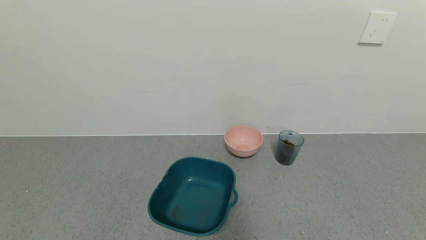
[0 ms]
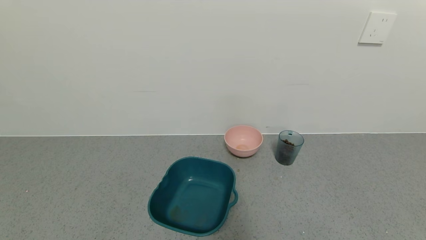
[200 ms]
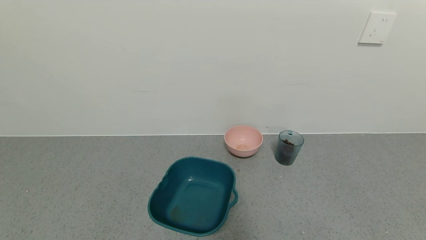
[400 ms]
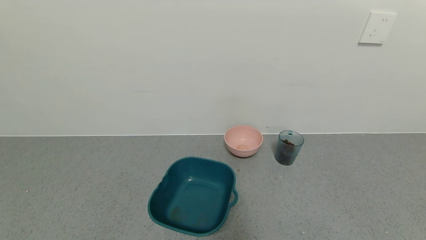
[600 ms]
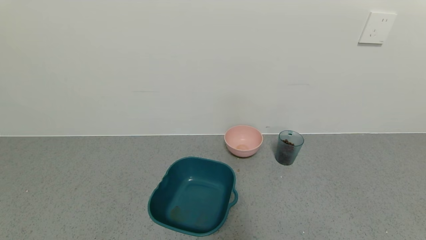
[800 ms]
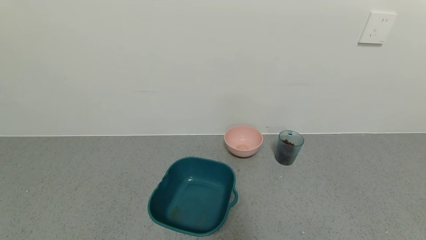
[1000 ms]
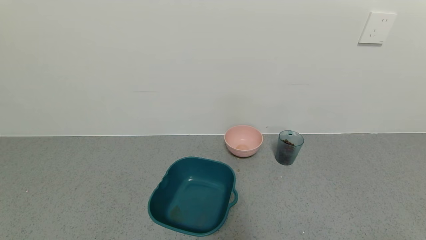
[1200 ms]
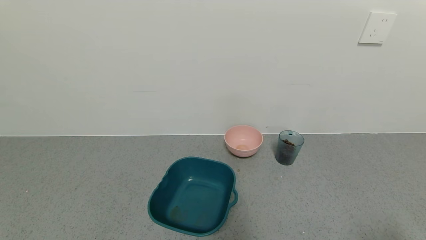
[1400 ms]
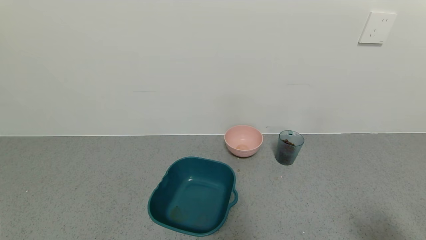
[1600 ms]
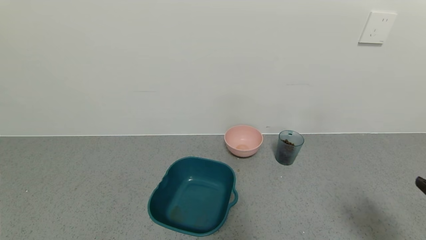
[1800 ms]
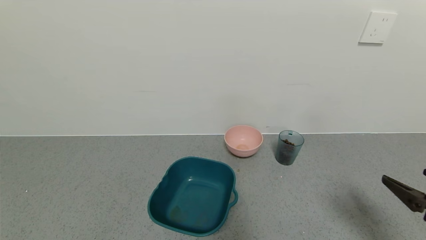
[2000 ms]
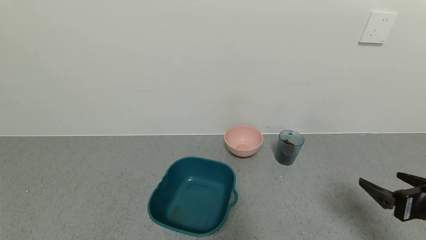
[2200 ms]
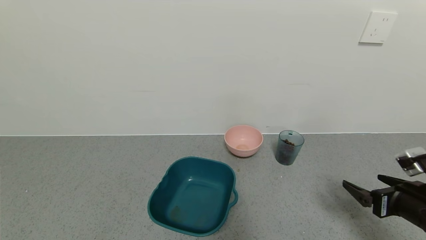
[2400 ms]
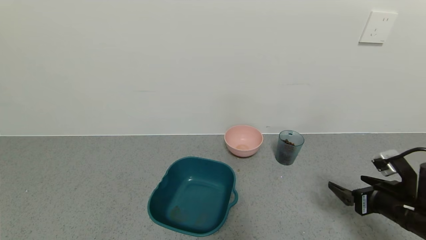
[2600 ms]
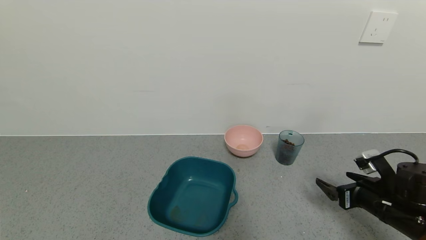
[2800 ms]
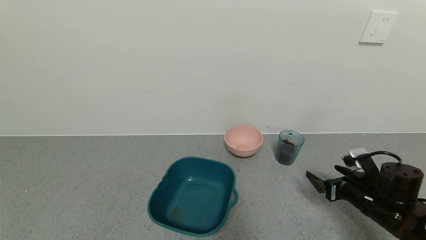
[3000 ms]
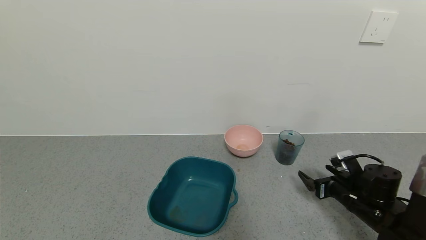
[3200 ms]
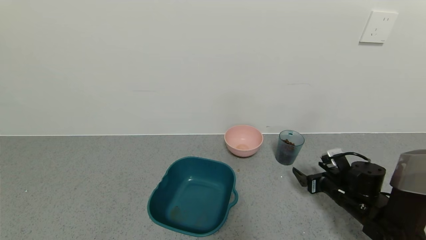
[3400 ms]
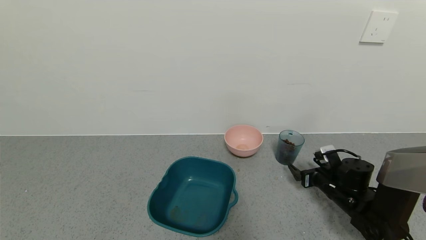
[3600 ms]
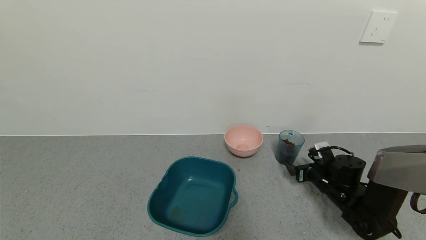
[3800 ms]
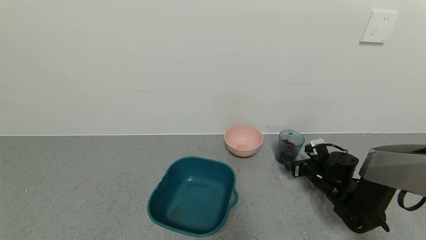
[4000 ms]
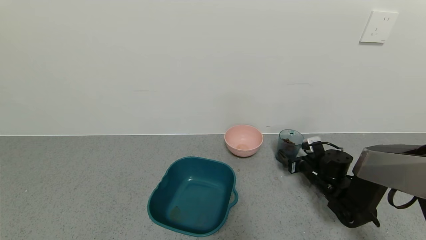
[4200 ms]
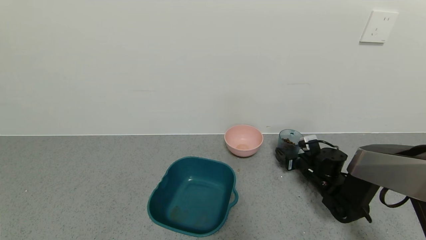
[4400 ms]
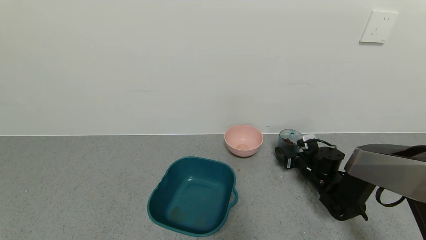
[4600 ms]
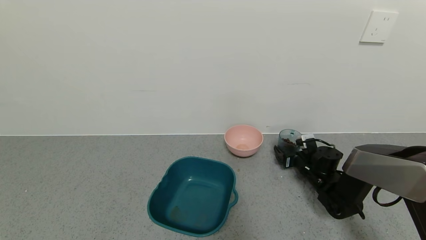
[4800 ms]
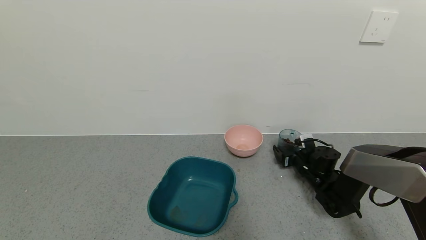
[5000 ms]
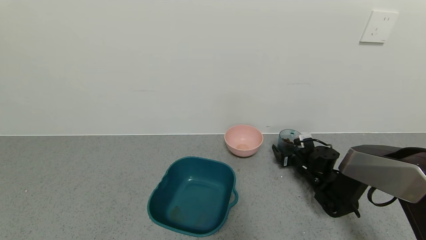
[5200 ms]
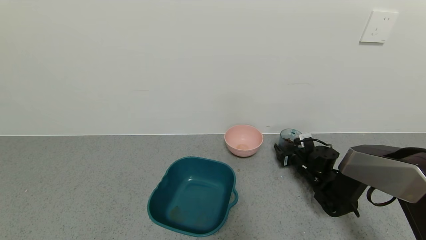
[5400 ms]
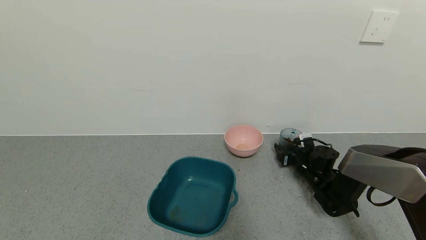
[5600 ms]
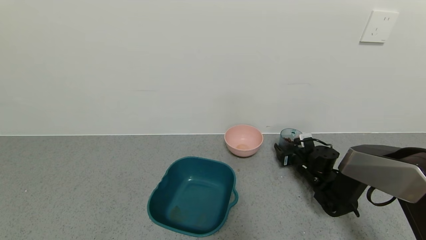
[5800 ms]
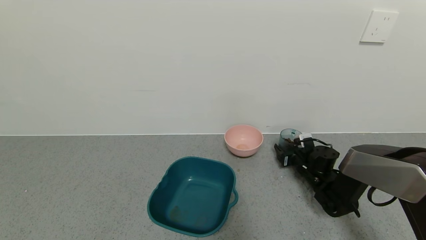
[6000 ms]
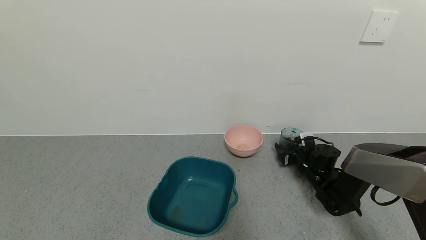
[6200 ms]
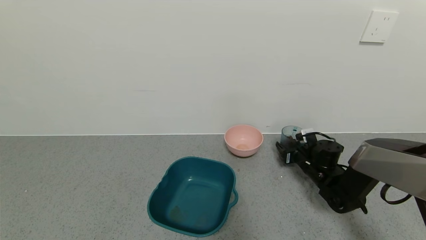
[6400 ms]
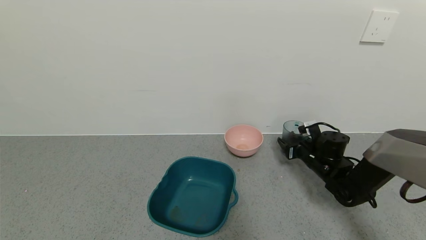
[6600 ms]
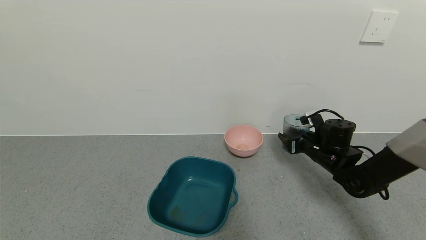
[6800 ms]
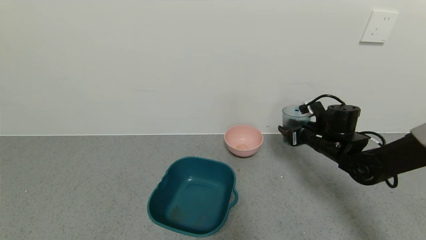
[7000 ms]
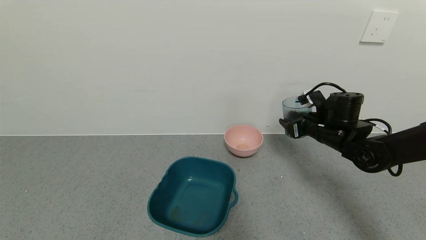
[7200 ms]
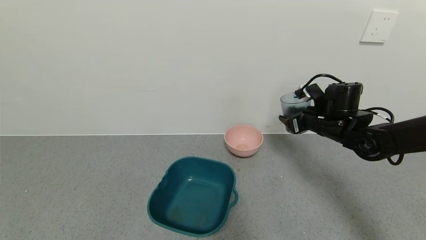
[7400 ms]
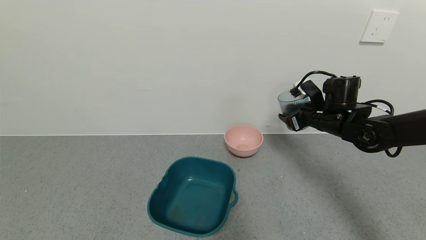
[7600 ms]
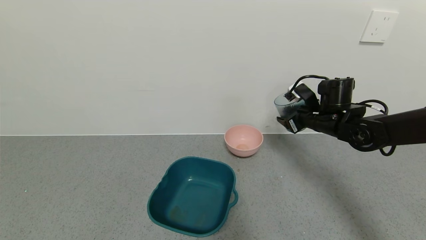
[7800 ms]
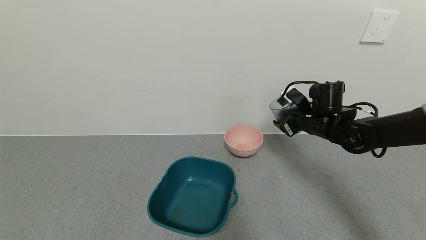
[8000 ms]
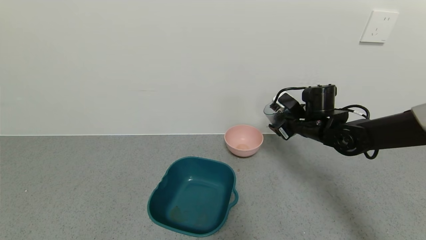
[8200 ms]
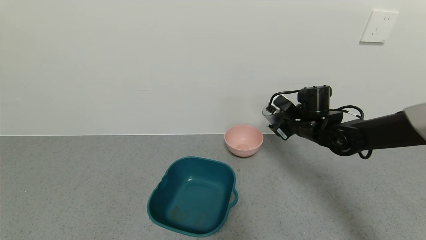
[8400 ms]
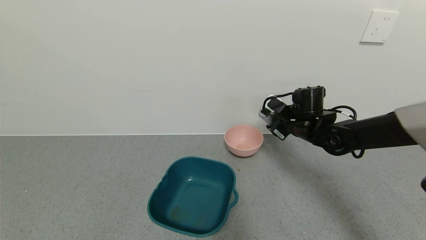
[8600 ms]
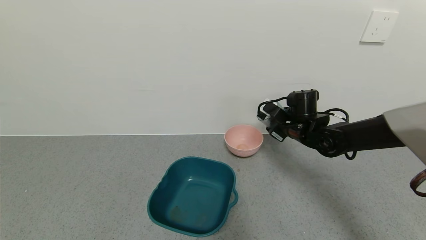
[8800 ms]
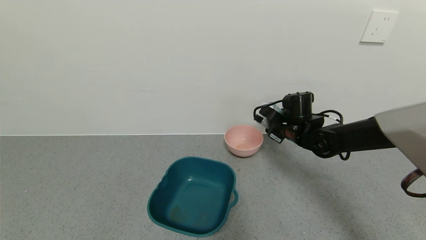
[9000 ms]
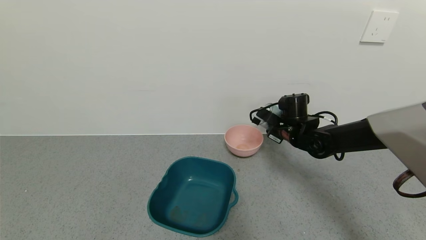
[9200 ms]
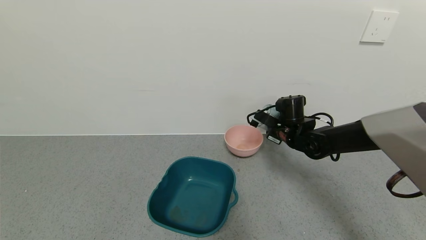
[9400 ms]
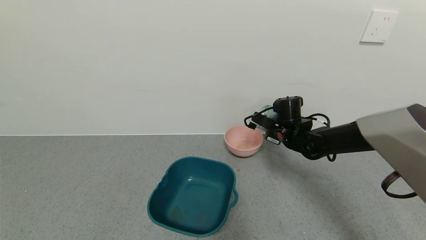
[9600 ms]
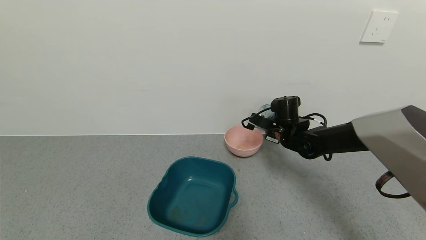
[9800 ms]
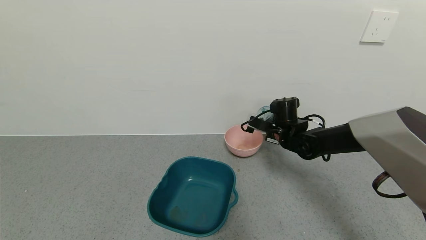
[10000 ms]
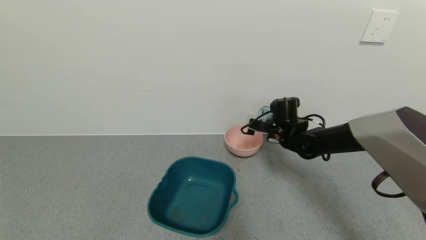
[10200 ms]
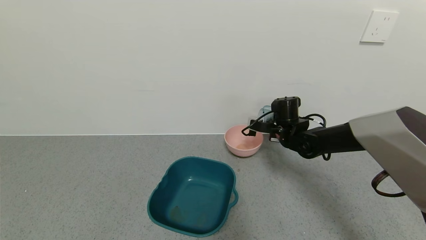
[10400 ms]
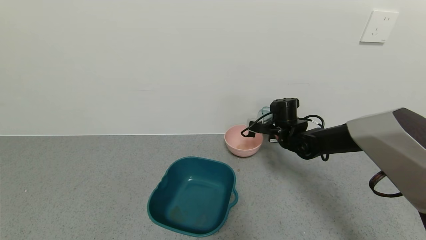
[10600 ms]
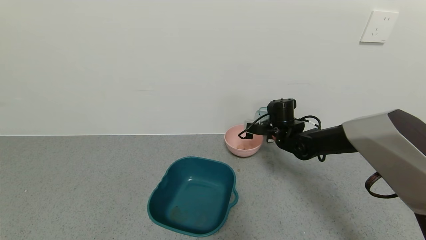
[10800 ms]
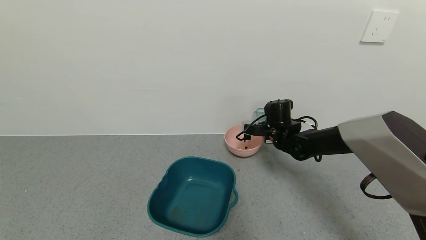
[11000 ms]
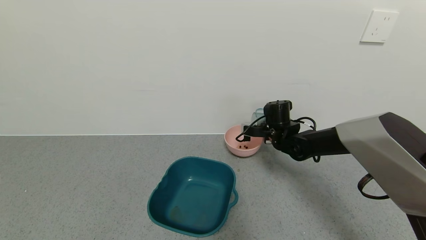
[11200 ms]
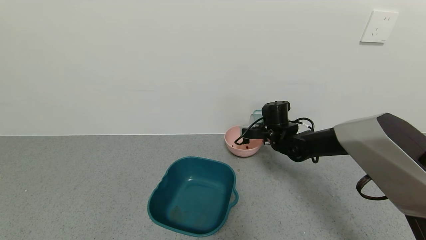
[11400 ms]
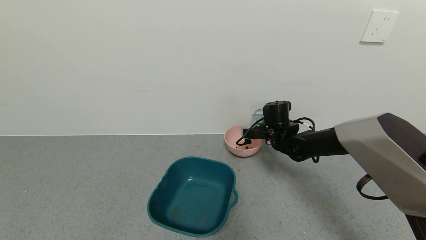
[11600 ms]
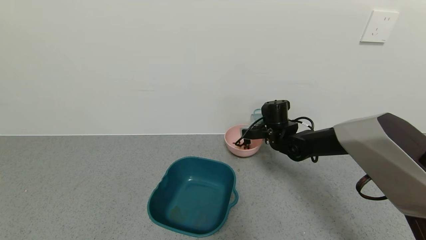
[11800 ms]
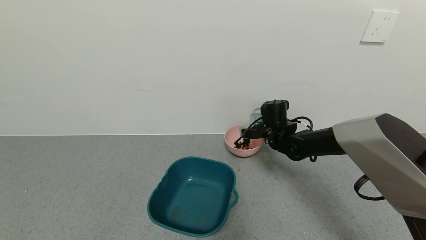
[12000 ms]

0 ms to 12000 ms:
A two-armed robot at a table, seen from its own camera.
Task of the whole recording: use a gripper to pick up the cup and pour the solid into a bowl or tray.
Step, 0 ms to 5800 ms: Grasp the glass of coffee beans with the right gripper.
0 ms to 1600 ms: The right gripper goes approximately 10 cm upward and forward.
1600 ms to 3000 ms: The right gripper moves forward and downward, some 25 cm.
3000 ms to 4400 ms: The right gripper goes approximately 15 cm forward and downward.
4400 ms to 6000 ms: The right gripper closes up.
6000 ms to 7600 ms: The right gripper is displaced upward by about 20 cm.
7600 ms to 9000 ms: The right gripper goes roughly 5 cm to the left.
10400 ms to 12000 ms: The grippers make only small movements.

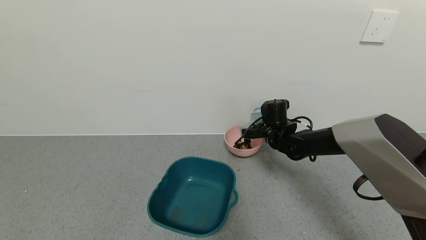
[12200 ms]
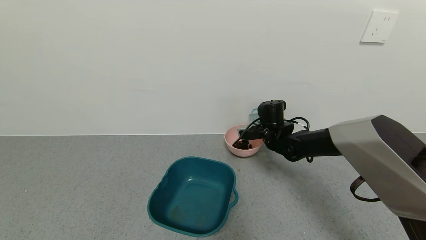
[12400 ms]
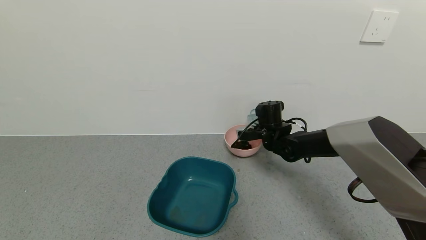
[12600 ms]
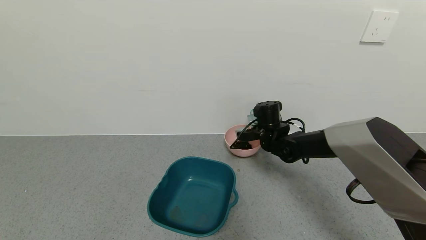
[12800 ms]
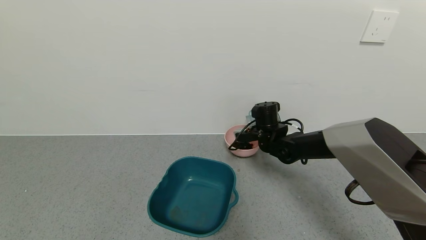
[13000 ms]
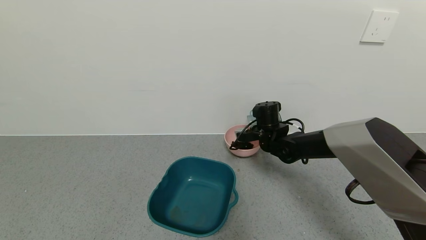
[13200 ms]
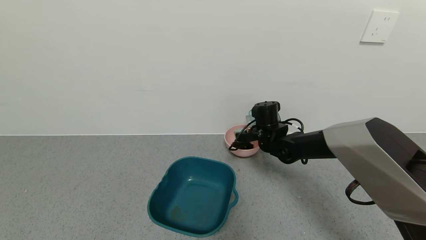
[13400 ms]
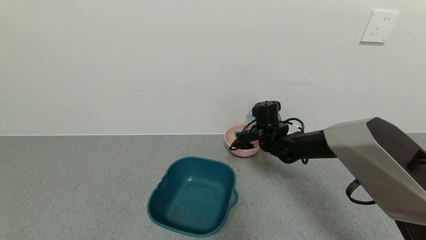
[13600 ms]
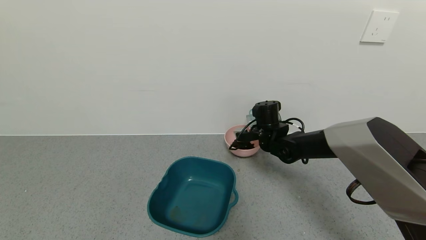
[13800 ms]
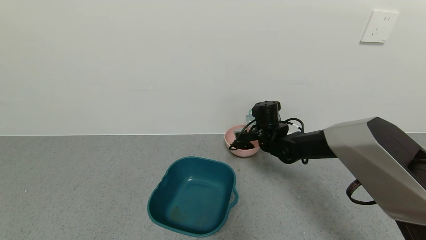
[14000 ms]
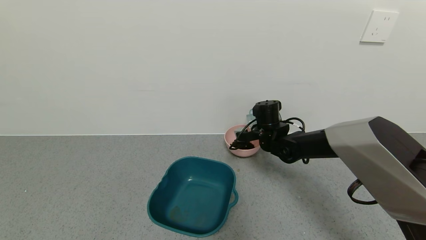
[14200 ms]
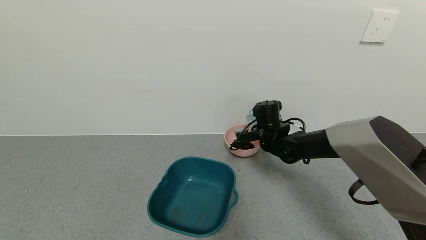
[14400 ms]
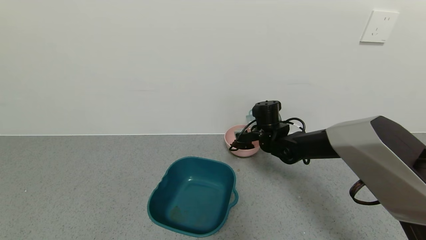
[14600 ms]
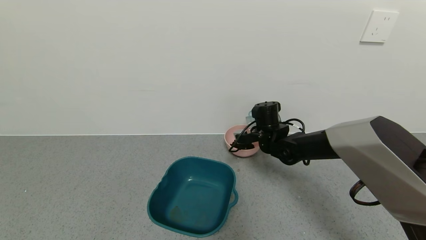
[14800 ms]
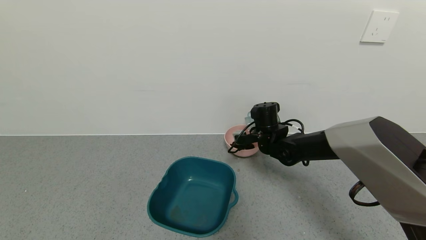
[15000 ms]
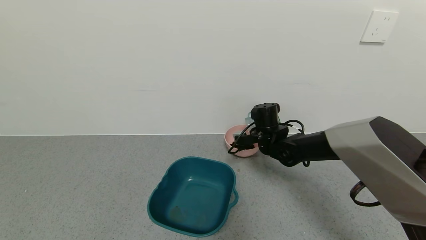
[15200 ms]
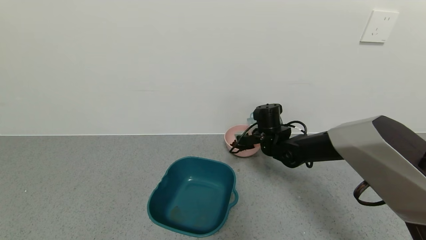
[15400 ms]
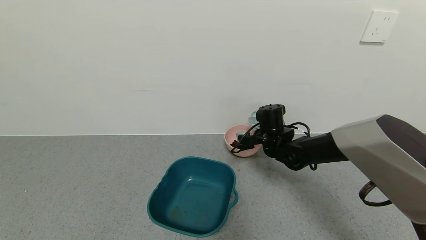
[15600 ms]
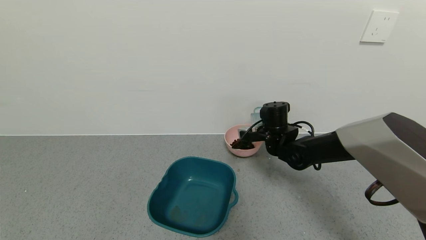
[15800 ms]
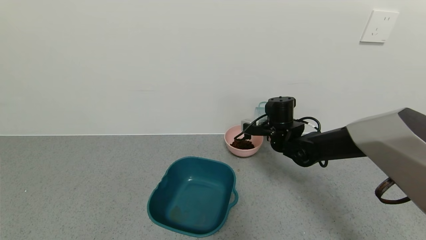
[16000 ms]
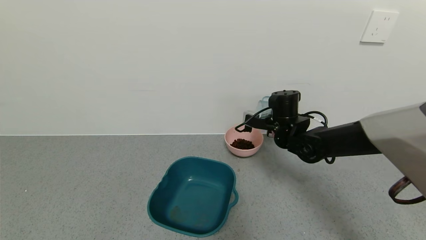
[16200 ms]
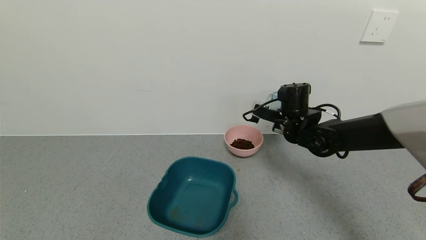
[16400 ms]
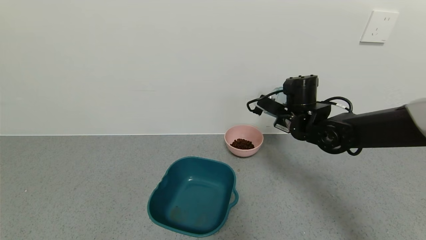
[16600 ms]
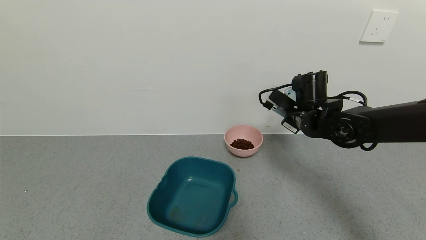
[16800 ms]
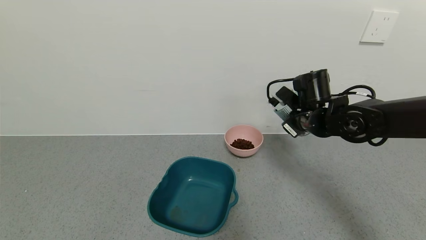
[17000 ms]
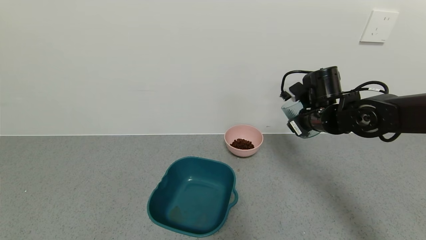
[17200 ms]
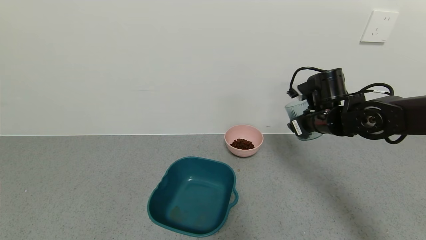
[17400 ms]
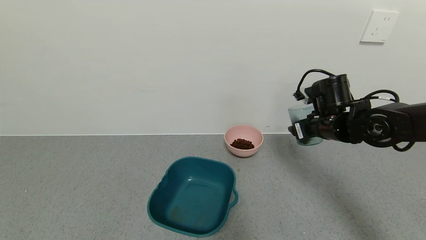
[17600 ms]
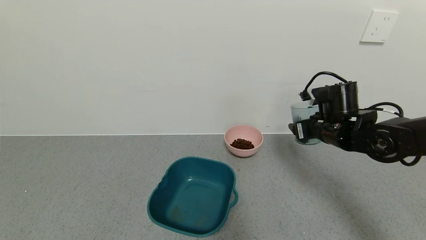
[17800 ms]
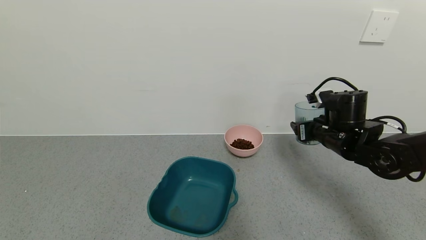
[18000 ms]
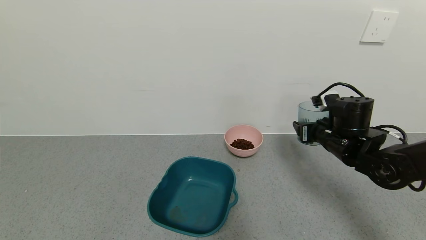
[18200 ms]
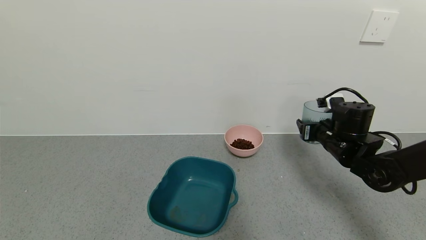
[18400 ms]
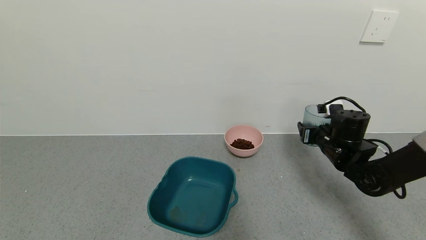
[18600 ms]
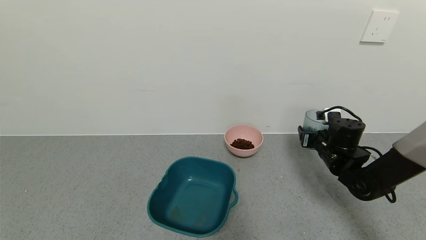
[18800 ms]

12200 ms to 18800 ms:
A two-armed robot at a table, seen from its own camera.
Task of the whole recording: use a gripper to pick up the cup and pour the solid into a bowl or tray.
Step, 12200 ms to 16400 ms: Pour the coffee beans into the pink bowl with the right gripper.
12200 ms to 13800 ms: There are only small adjustments of the grippers.
13800 ms to 15400 ms: The two grippers keep their place.
15400 ms to 17200 ms: The right gripper moves upward, to the right and backward, roughly 15 cm.
17200 ms to 18800 ms: The right gripper moves downward and to the right, some 15 cm.
